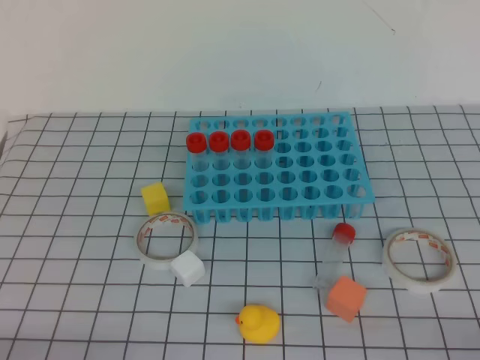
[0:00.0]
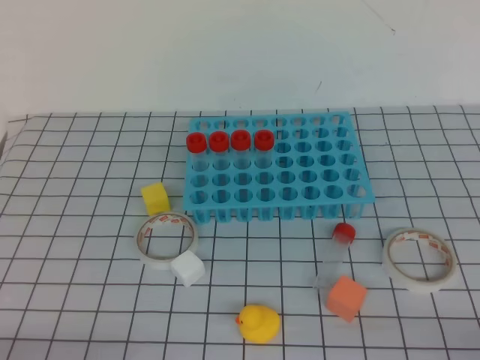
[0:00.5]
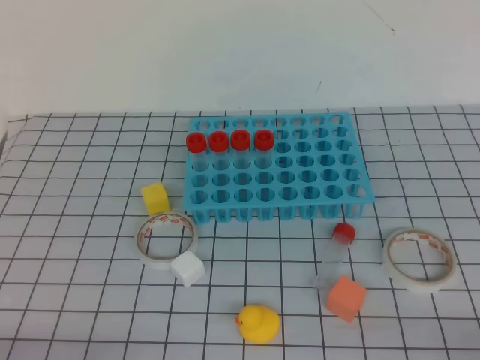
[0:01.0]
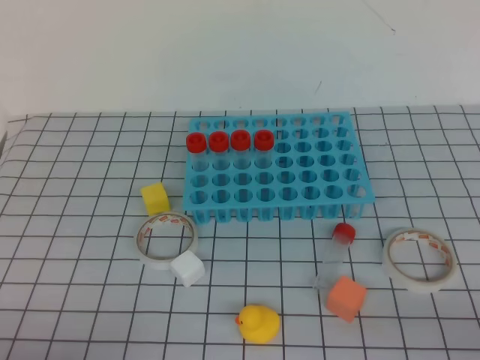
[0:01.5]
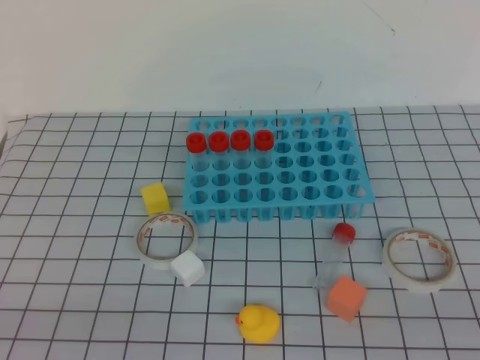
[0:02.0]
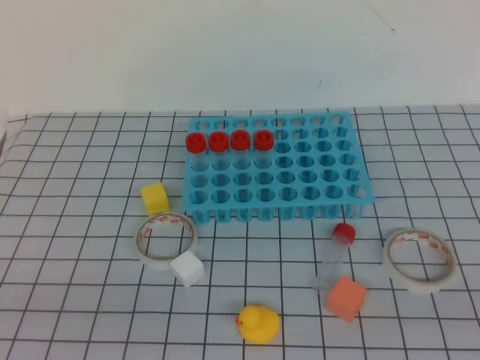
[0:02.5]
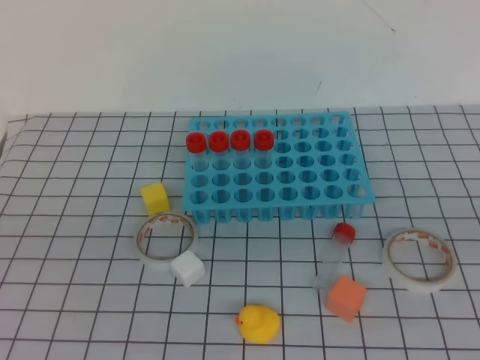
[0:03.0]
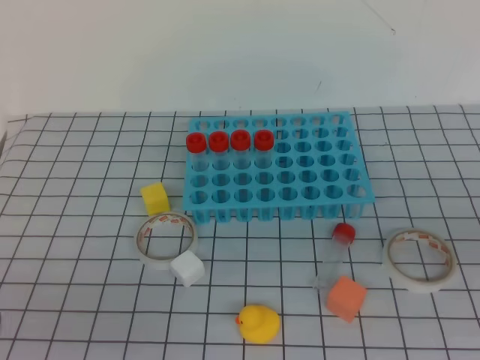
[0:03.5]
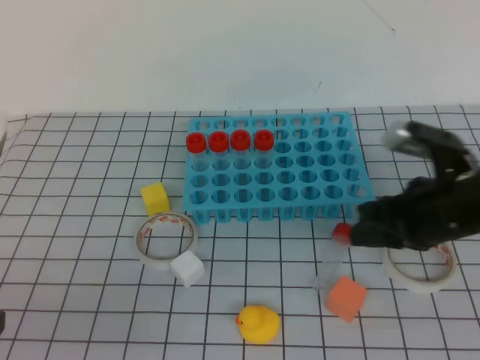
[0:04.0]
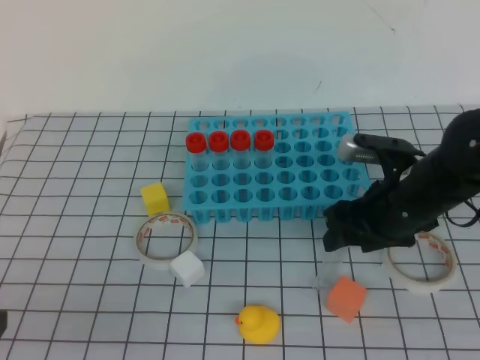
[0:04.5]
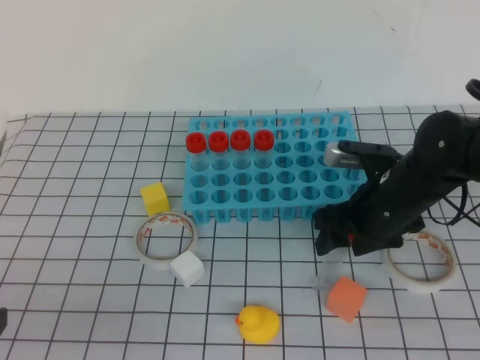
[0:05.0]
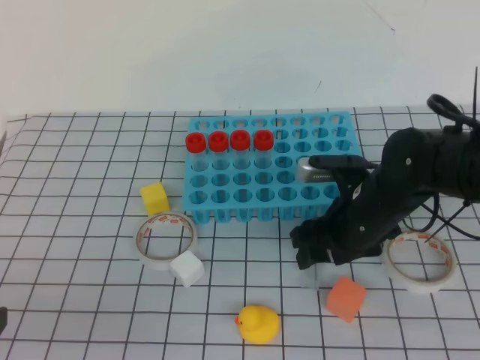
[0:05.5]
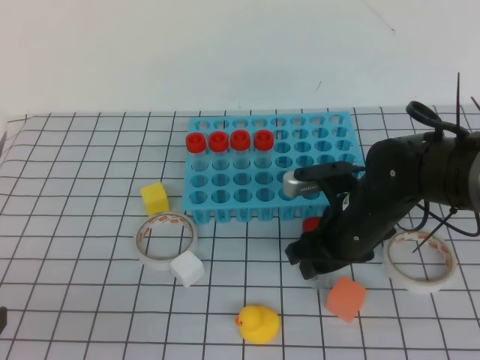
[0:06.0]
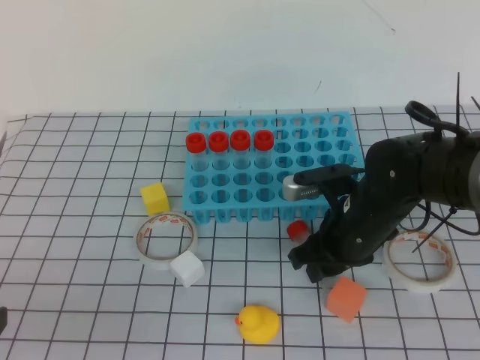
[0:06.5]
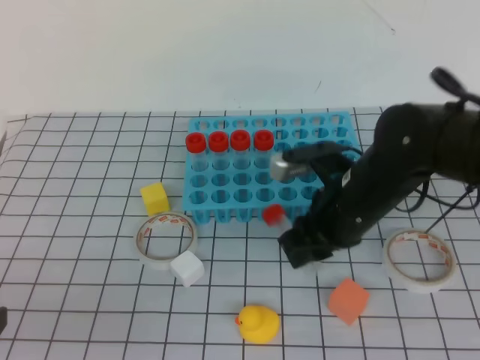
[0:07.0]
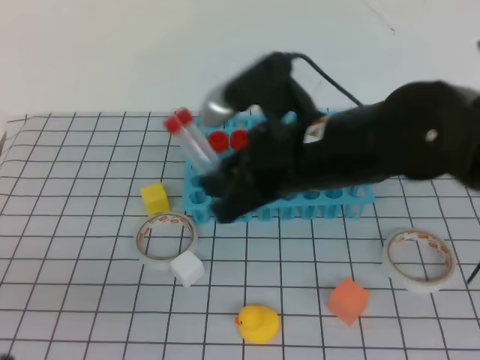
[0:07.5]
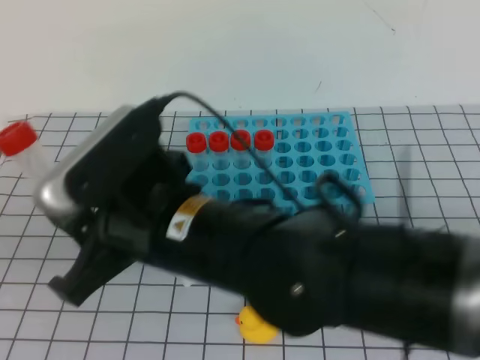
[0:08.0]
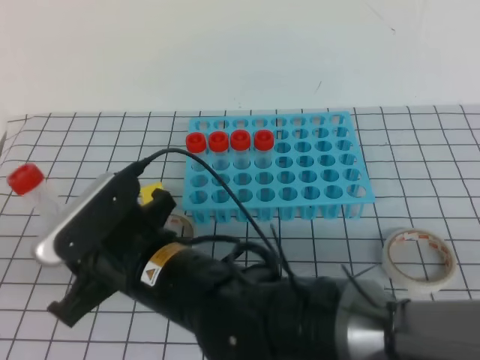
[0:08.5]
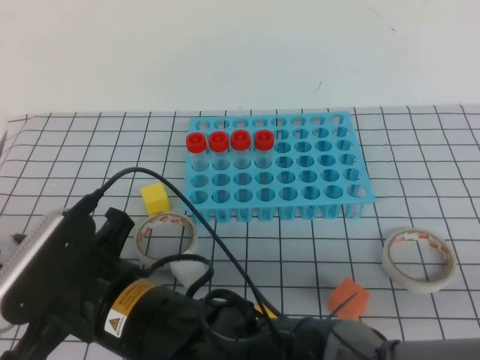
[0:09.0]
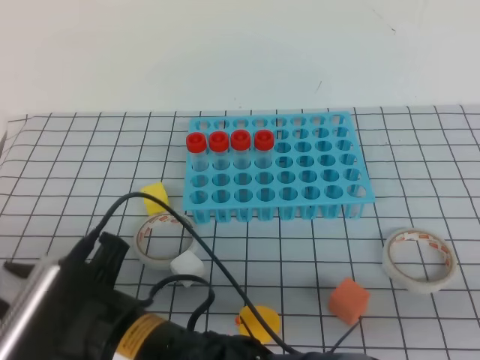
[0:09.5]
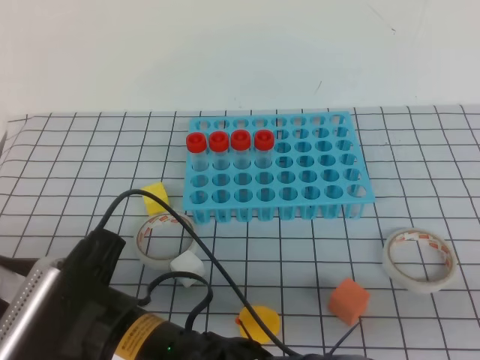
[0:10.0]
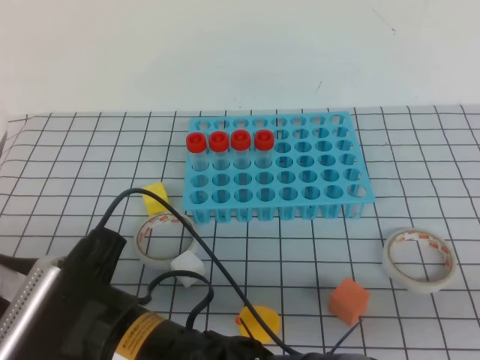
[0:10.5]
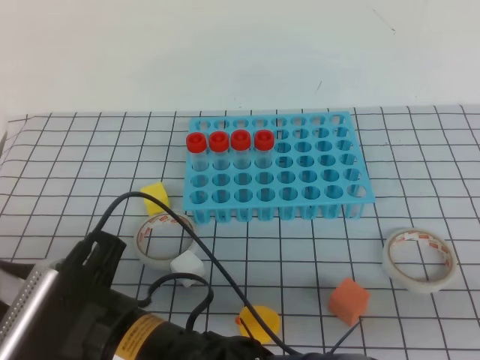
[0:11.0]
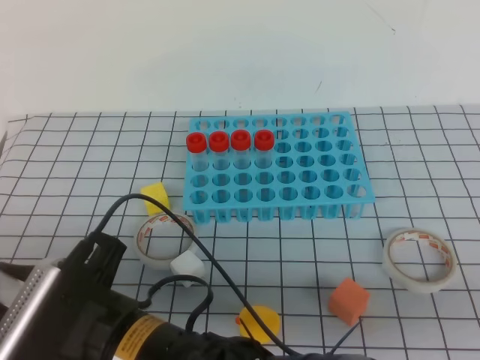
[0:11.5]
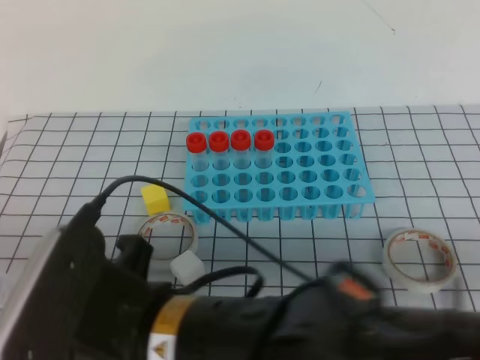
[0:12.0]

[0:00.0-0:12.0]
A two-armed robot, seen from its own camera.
0:02.0 to 0:04.0: The right gripper is displaced forward and to the left by roughly 30 cm, and opens its fingers.
0:04.0 to 0:06.0: The right gripper goes roughly 10 cm to the left and downward, and opens up.
0:06.0 to 0:08.0: The right gripper travels to the left, upward and backward by approximately 25 cm.
0:08.0 to 0:10.0: The left gripper opens its fingers; the right gripper heads backward, downward and to the left, covering approximately 10 cm.
0:10.0 to 0:12.0: The right gripper goes about 5 cm upward.

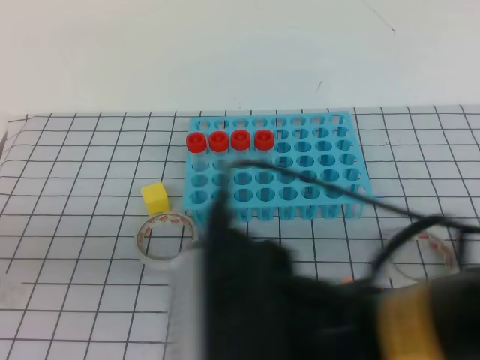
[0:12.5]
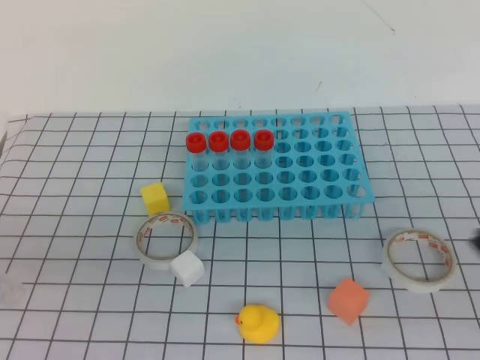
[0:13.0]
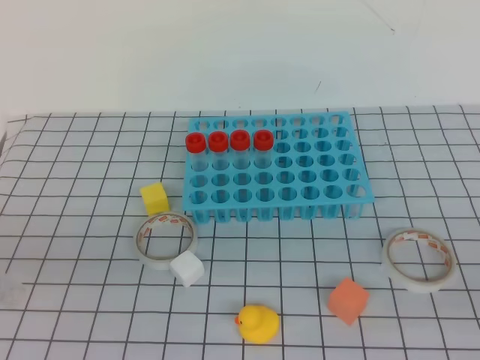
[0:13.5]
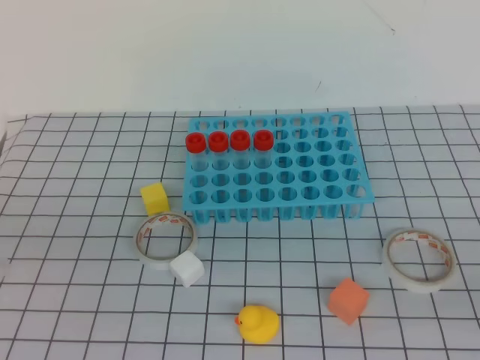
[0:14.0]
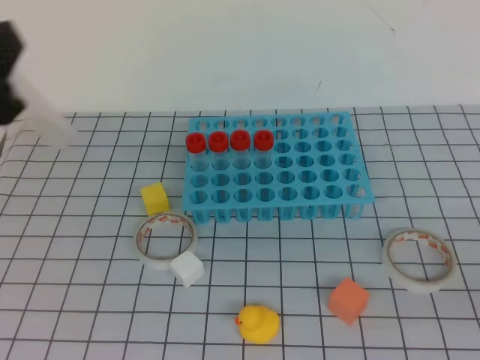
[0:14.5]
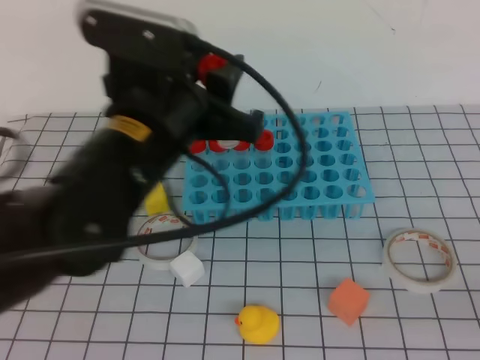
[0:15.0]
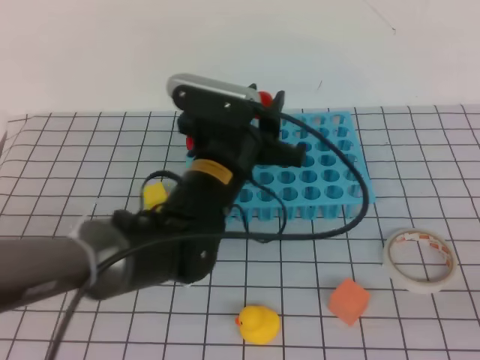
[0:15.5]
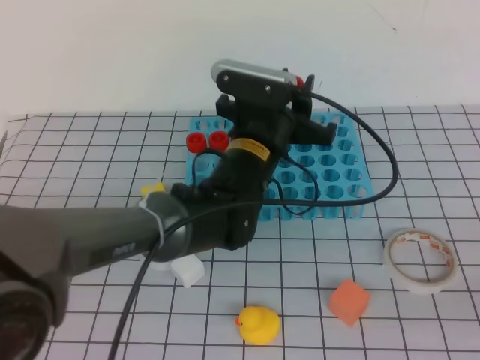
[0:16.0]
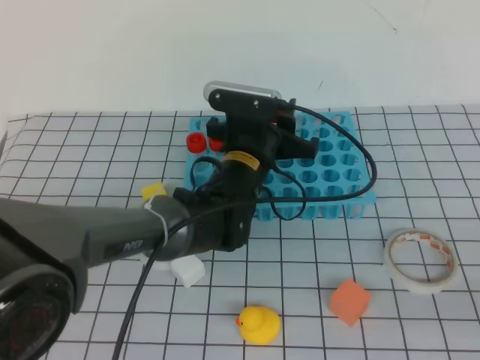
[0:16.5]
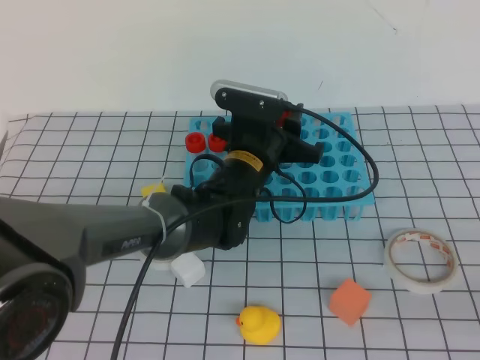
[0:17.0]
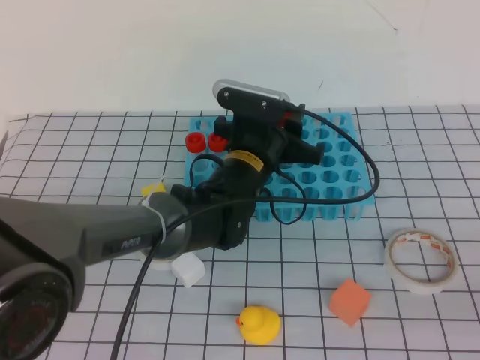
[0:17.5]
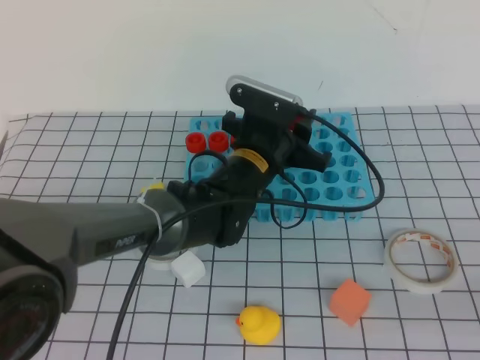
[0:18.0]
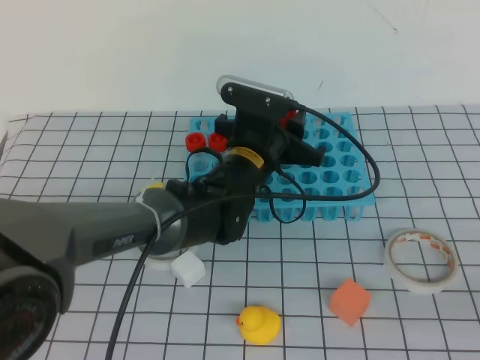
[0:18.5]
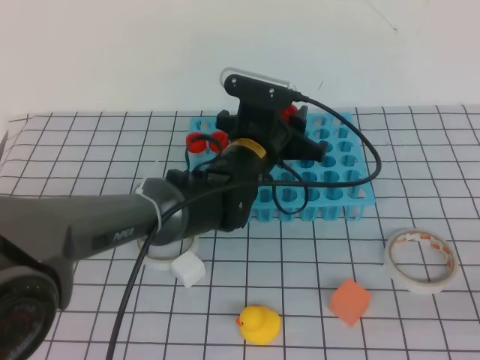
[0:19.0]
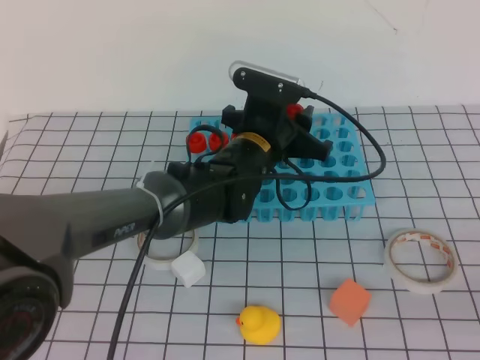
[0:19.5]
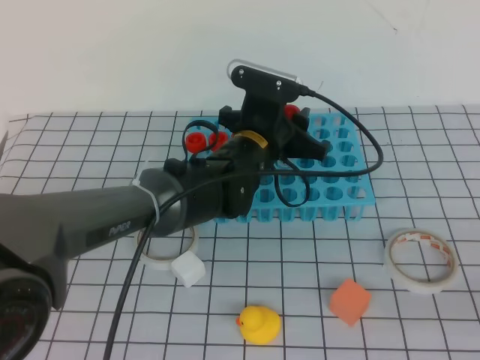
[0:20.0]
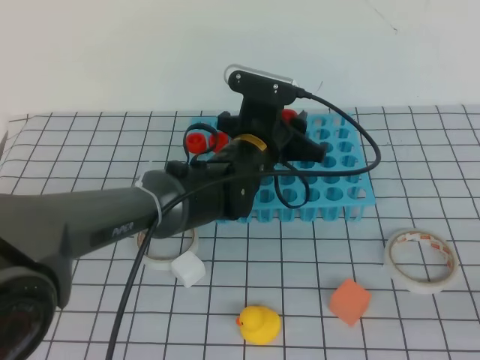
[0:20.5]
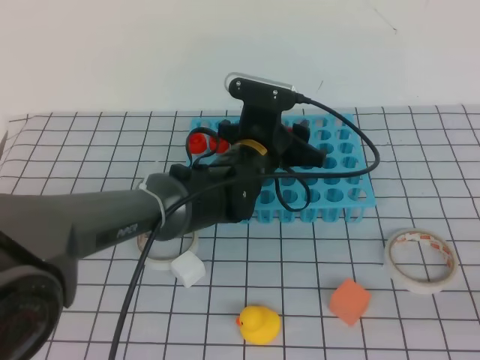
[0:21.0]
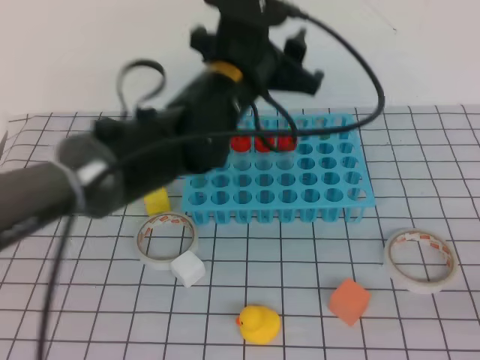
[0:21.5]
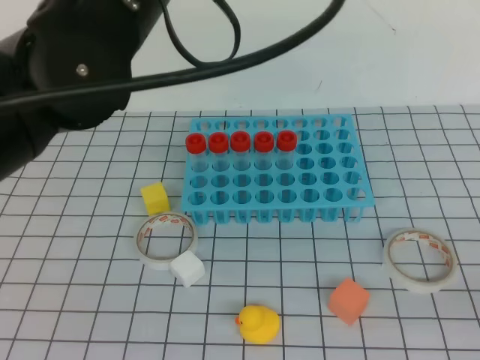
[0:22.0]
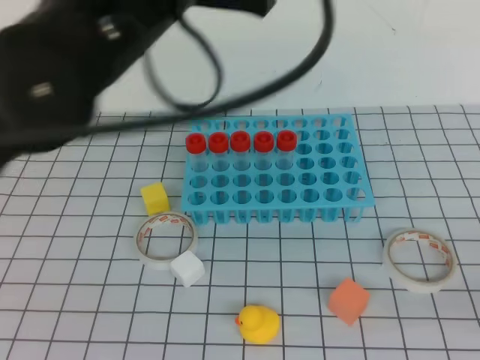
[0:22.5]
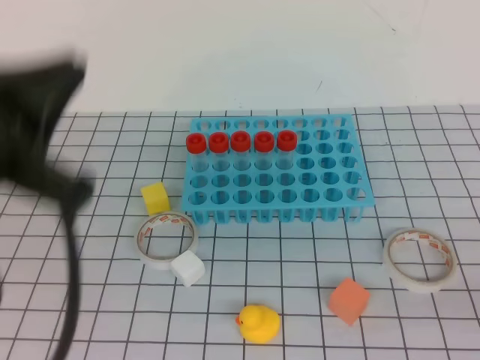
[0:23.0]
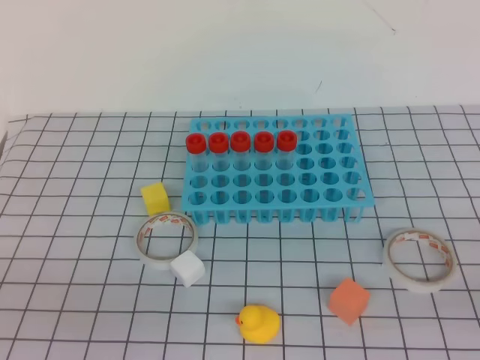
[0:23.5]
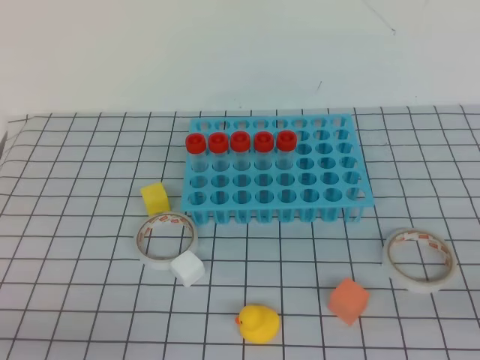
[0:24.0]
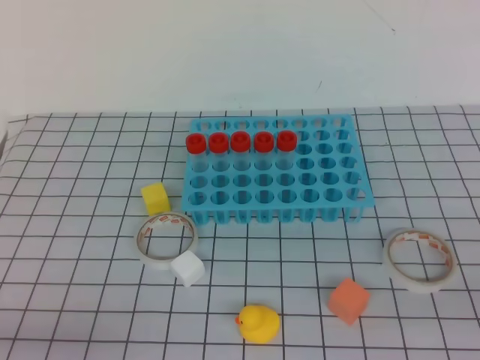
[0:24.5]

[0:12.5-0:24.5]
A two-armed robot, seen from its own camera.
0:12.5 to 0:14.5: The left gripper moves upward and forward, roughly 15 cm. The right gripper heads to the right, covering roughly 30 cm.
0:14.5 to 0:16.5: The left gripper heads to the right, forward and downward, covering some 35 cm.
0:16.5 to 0:20.5: The grippers make only small movements.
0:20.5 to 0:22.5: The left gripper shifts some 30 cm upward, backward and to the left, and closes up.
0:22.5 to 0:24.5: The left gripper is displaced downward, backward and to the left by roughly 35 cm.

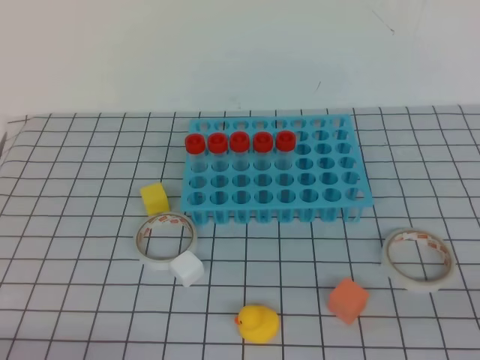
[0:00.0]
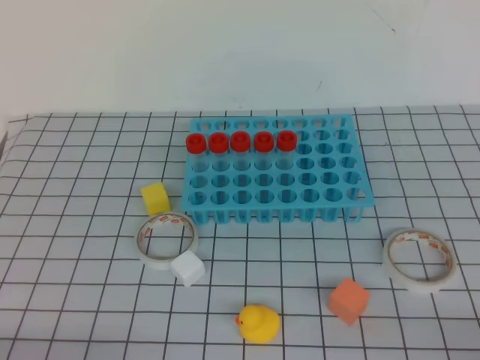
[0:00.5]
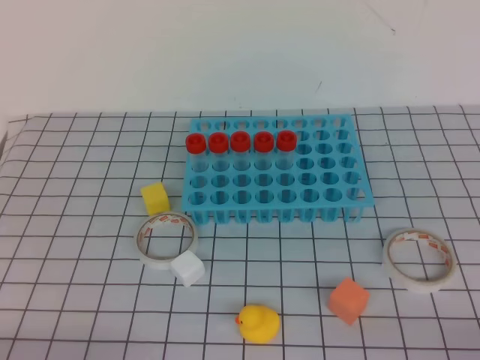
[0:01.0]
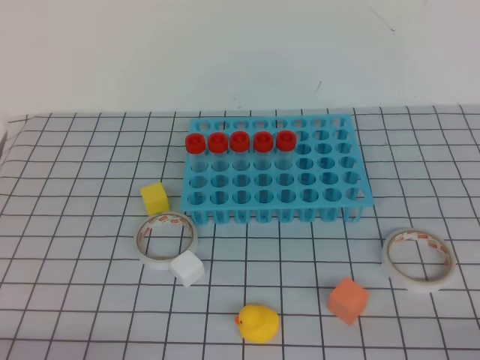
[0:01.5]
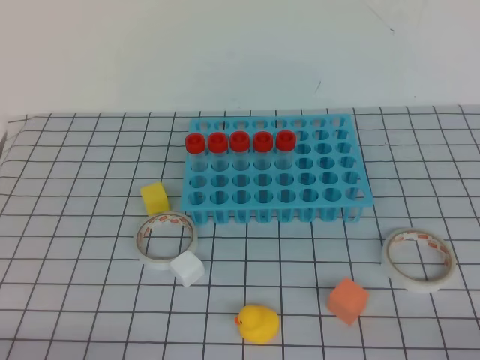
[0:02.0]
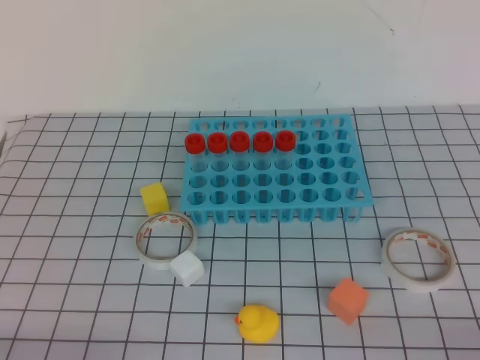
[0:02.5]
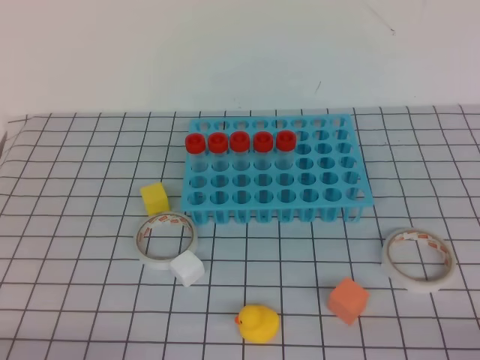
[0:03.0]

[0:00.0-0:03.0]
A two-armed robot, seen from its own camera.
0:01.5 to 0:03.0: Both grippers stay about where they are.
